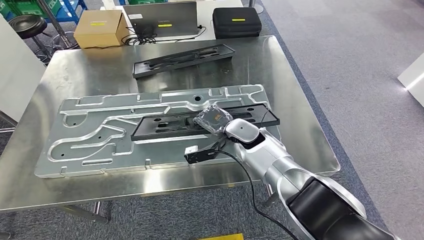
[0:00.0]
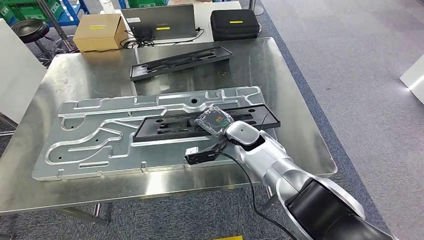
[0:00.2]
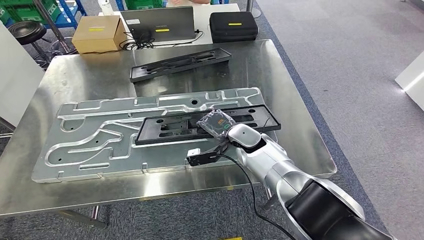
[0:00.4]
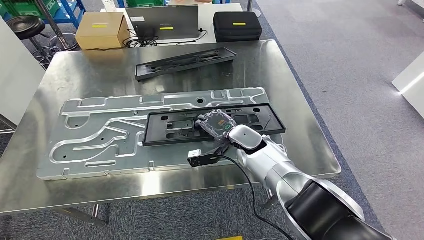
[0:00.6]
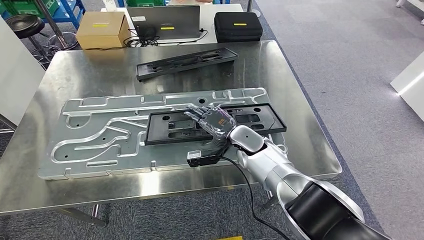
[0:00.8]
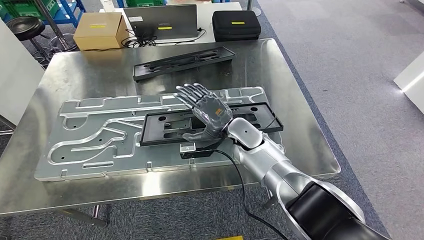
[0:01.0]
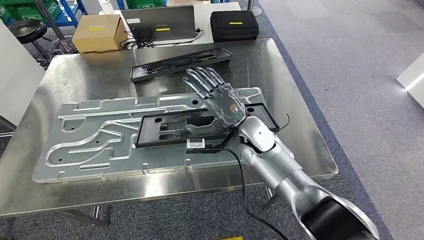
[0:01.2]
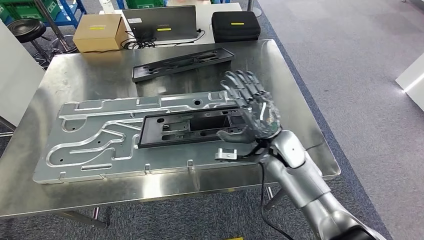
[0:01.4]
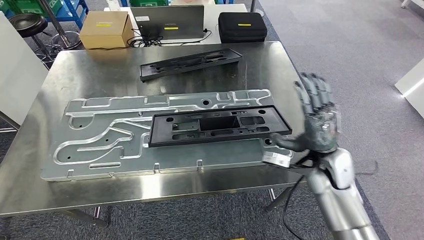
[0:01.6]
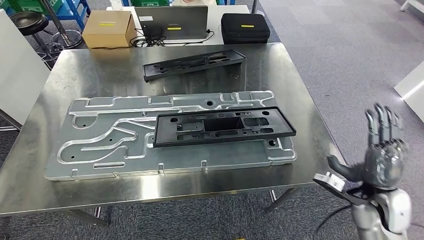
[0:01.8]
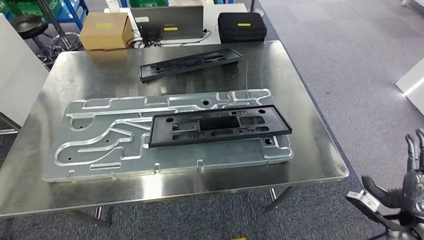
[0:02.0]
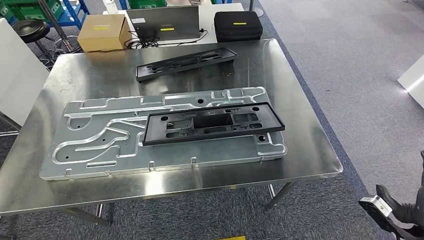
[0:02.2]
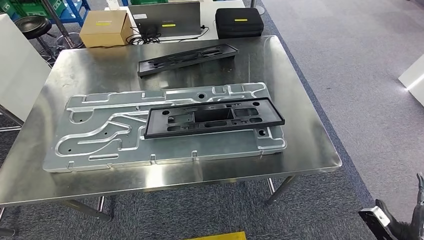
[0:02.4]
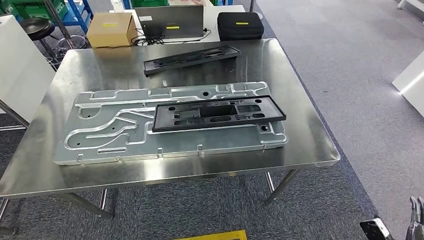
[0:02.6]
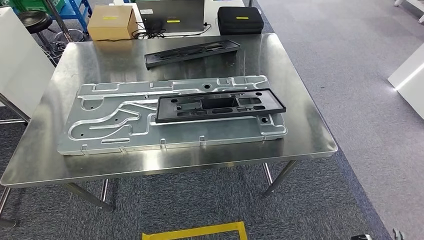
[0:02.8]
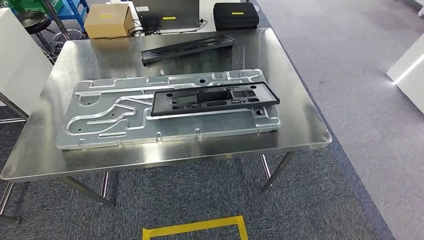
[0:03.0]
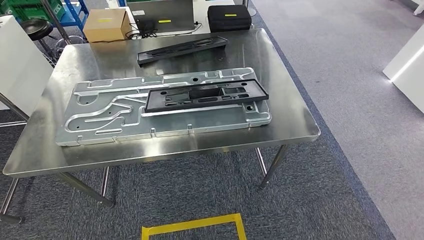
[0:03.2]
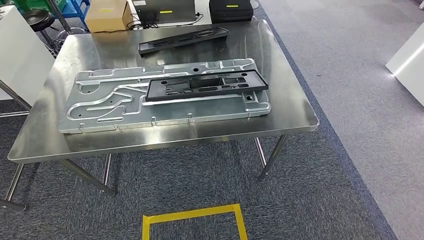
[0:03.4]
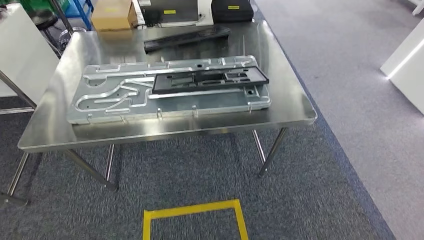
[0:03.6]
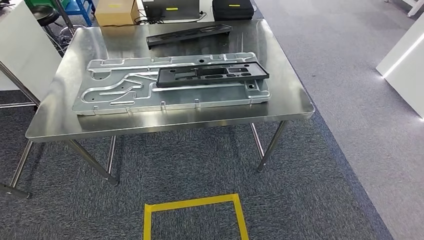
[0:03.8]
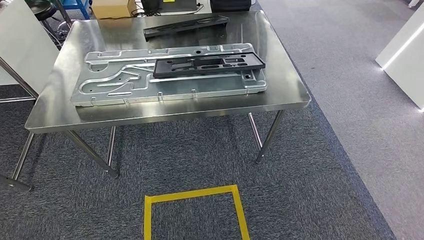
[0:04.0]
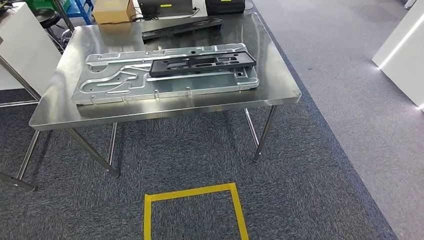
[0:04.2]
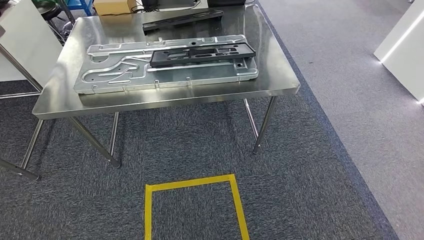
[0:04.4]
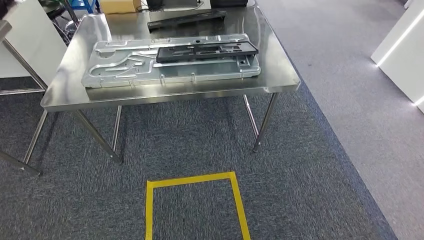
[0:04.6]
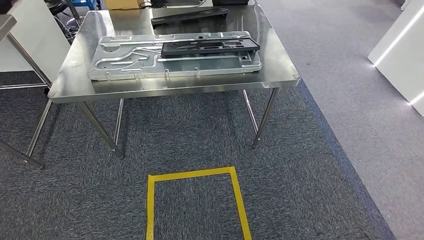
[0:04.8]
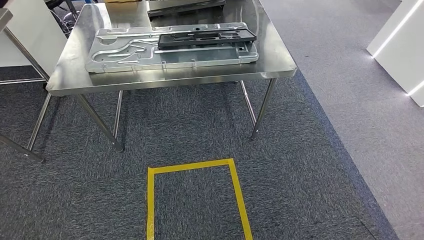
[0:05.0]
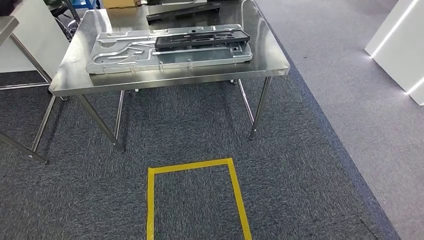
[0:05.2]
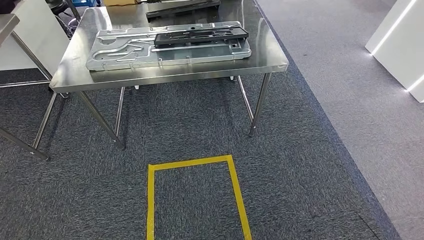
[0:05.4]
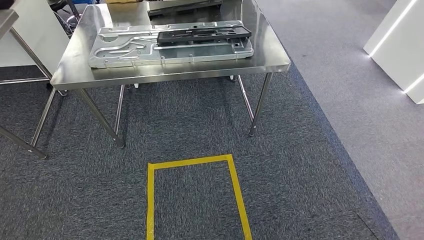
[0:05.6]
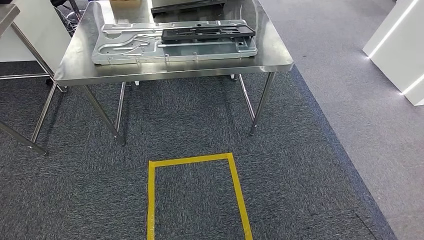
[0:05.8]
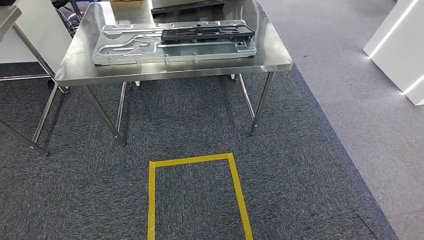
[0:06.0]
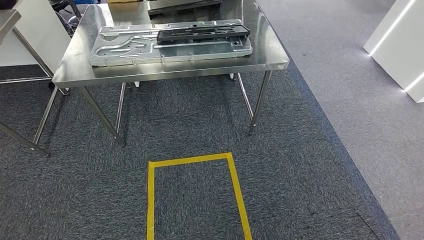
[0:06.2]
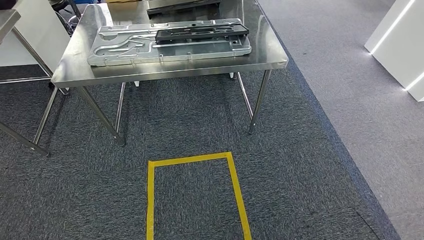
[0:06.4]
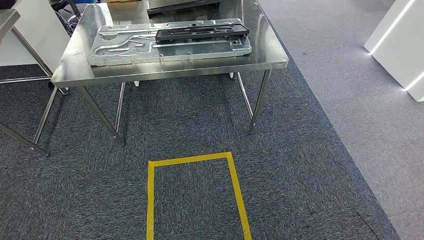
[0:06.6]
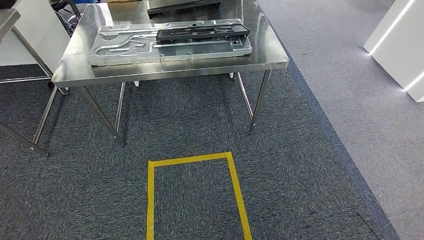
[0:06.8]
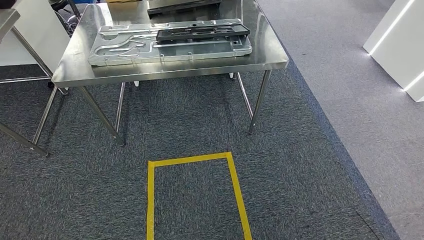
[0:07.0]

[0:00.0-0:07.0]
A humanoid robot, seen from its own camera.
Step, 0:00.0 to 0:02.2: Insert the large material into the corresponding slot on the workbench.
Step, 0:02.6 to 0:07.0: Move to the initial position of the shelf.
0:05.6 to 0:07.0: The hands make only small movements.

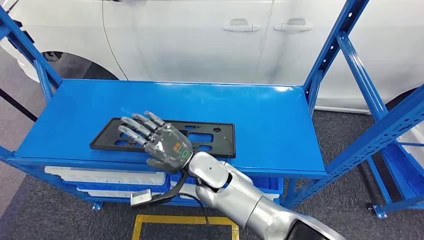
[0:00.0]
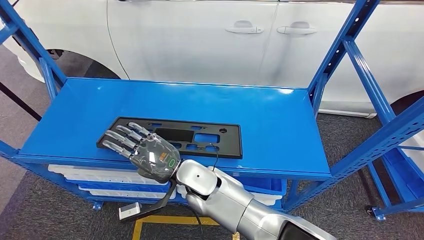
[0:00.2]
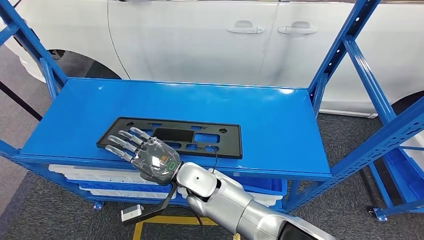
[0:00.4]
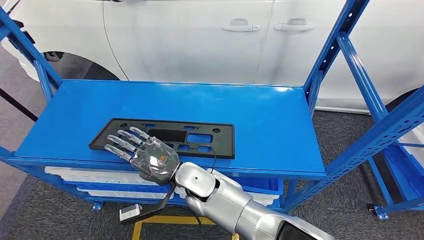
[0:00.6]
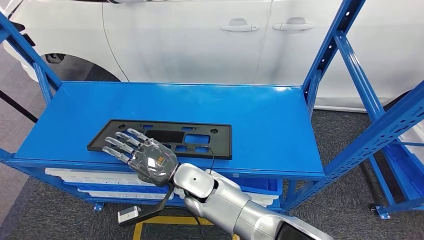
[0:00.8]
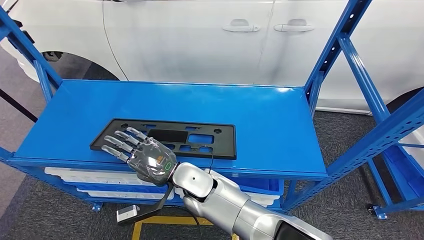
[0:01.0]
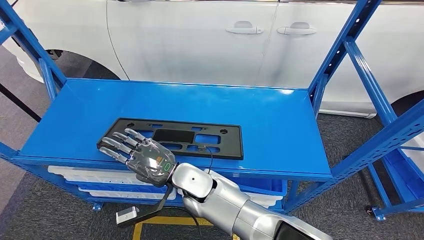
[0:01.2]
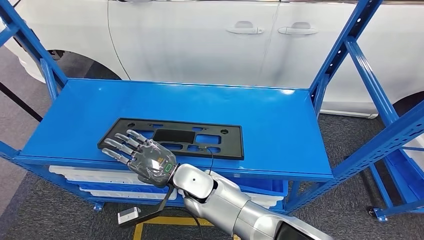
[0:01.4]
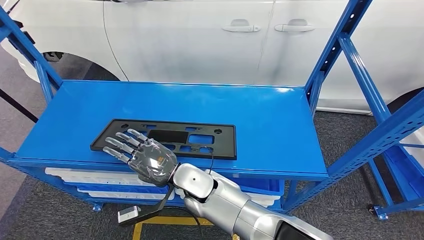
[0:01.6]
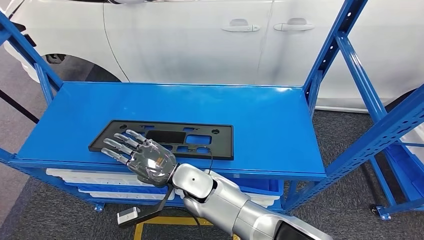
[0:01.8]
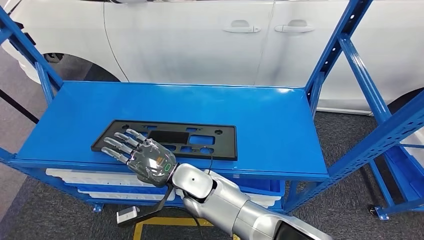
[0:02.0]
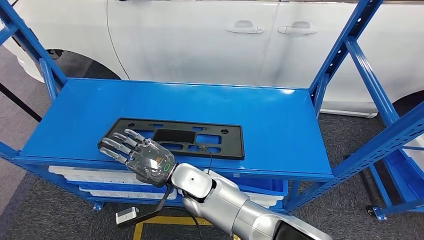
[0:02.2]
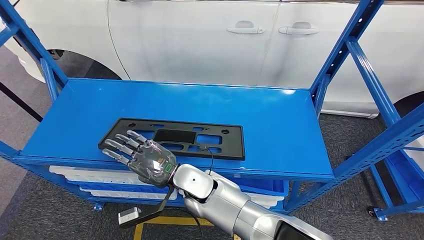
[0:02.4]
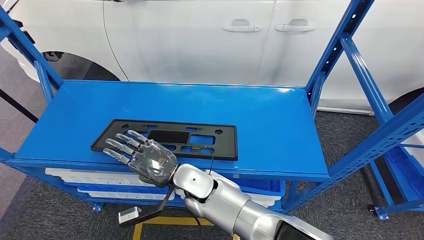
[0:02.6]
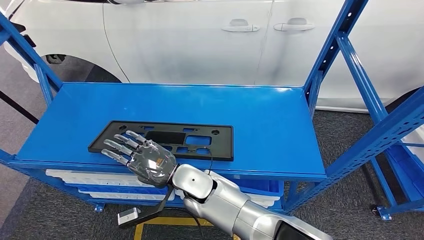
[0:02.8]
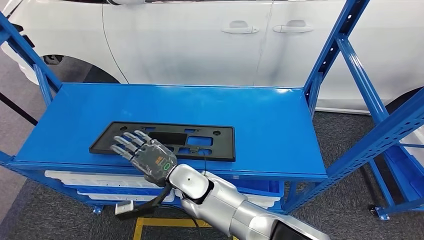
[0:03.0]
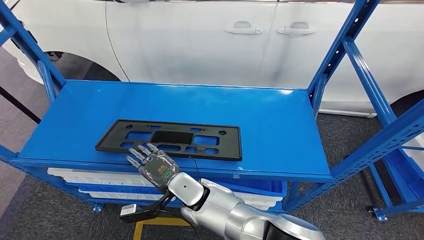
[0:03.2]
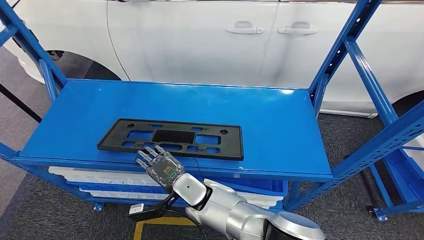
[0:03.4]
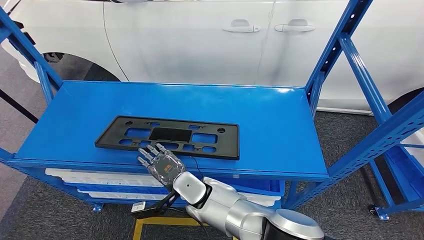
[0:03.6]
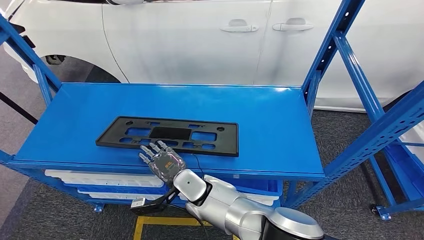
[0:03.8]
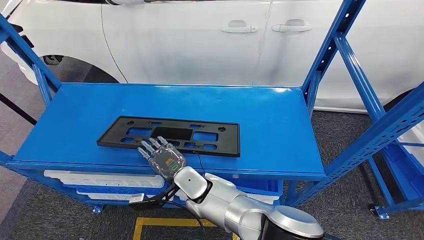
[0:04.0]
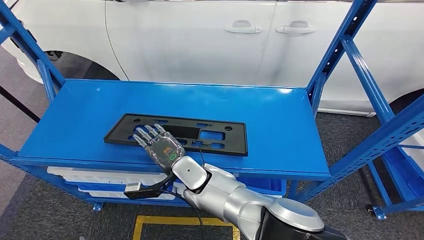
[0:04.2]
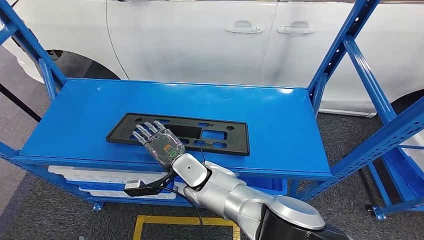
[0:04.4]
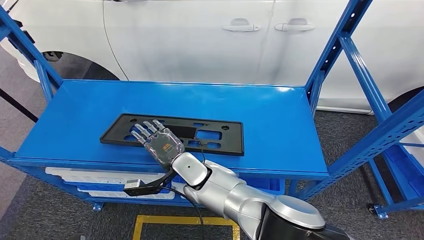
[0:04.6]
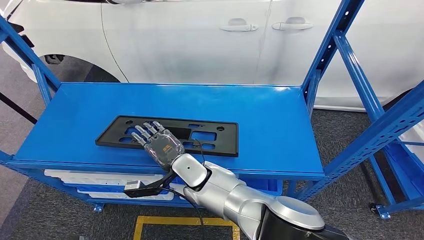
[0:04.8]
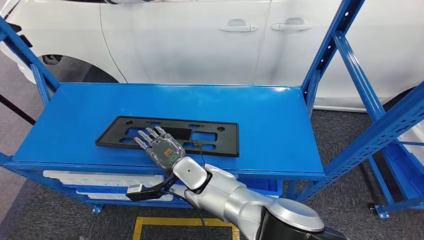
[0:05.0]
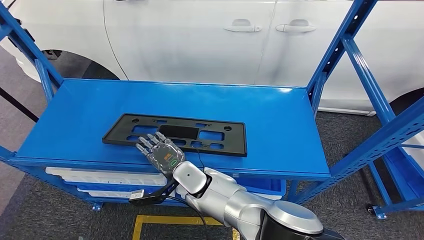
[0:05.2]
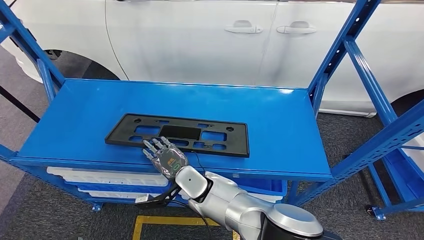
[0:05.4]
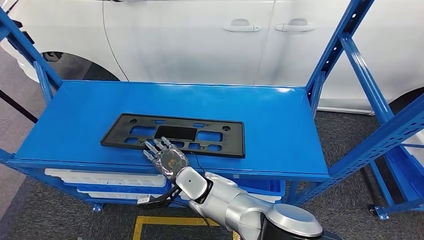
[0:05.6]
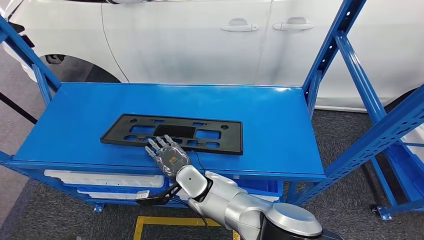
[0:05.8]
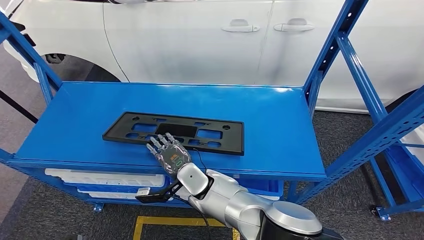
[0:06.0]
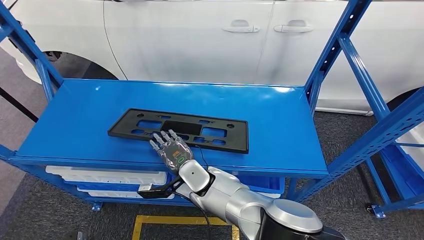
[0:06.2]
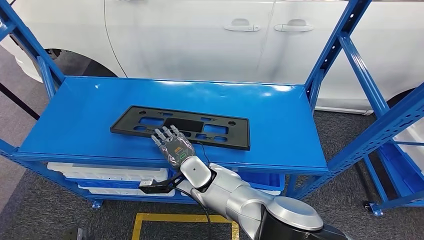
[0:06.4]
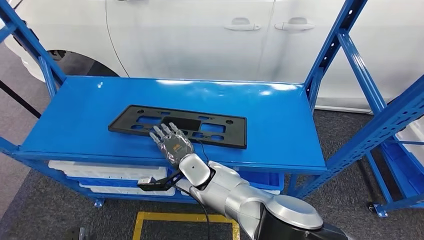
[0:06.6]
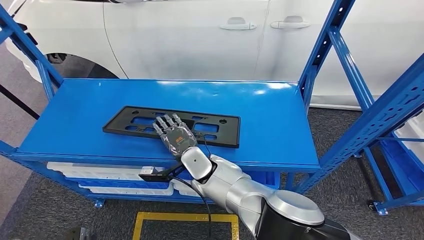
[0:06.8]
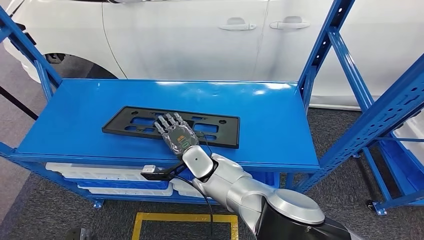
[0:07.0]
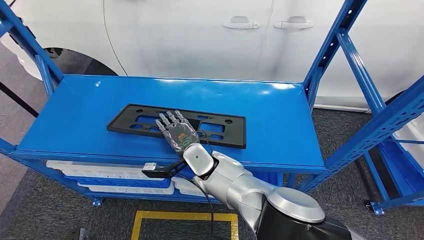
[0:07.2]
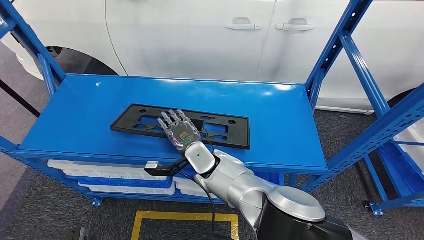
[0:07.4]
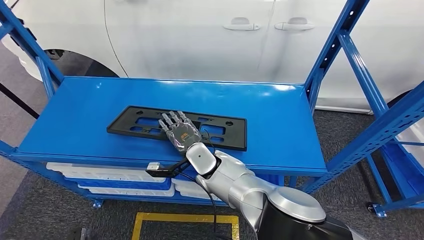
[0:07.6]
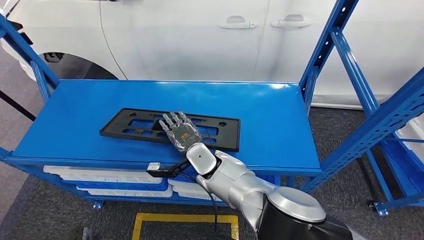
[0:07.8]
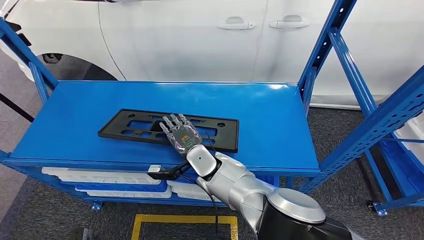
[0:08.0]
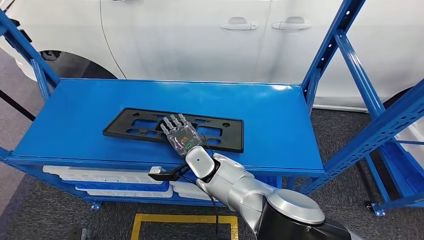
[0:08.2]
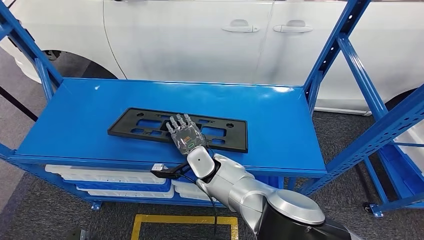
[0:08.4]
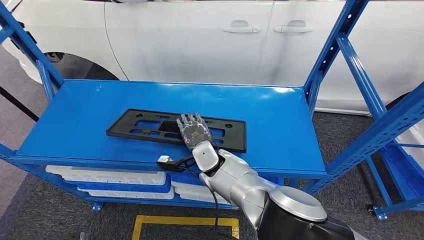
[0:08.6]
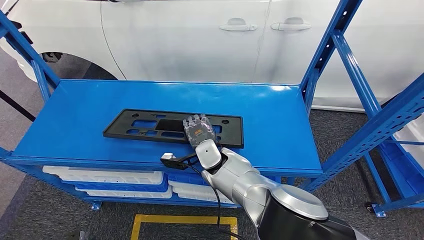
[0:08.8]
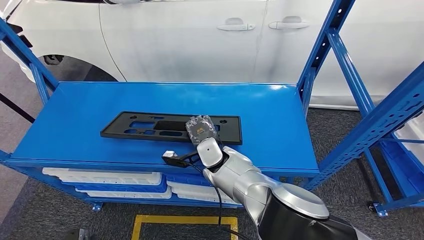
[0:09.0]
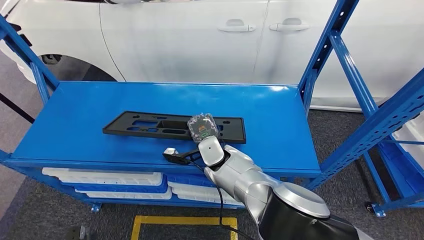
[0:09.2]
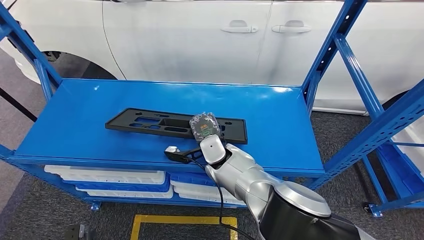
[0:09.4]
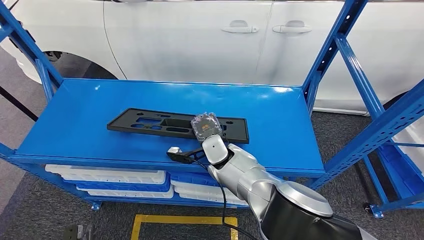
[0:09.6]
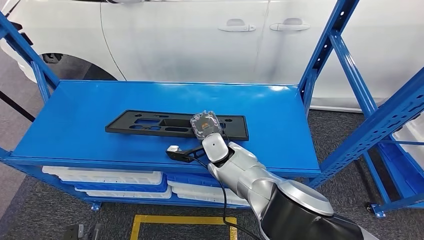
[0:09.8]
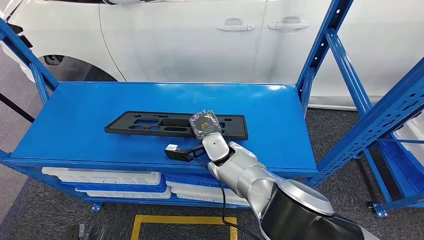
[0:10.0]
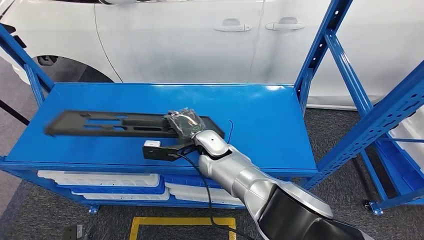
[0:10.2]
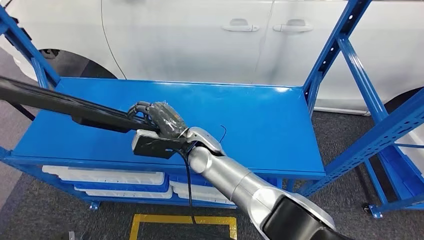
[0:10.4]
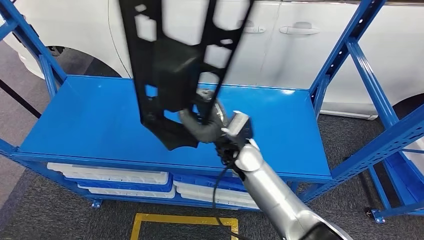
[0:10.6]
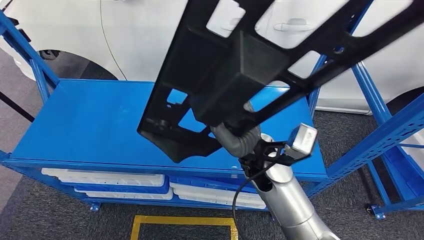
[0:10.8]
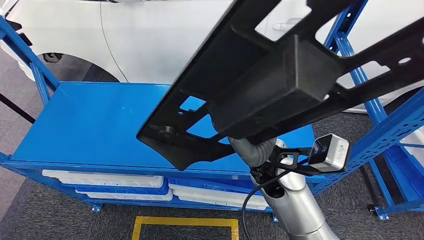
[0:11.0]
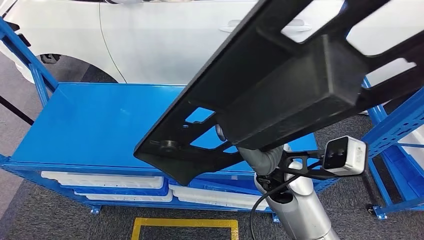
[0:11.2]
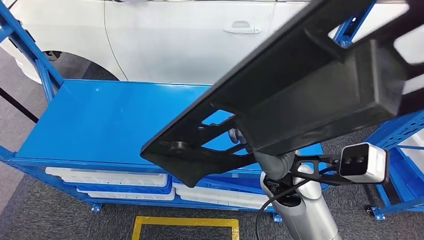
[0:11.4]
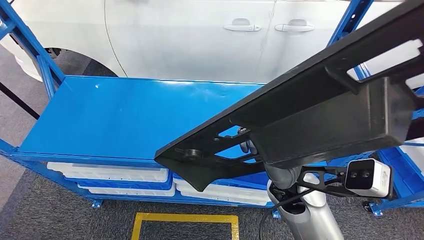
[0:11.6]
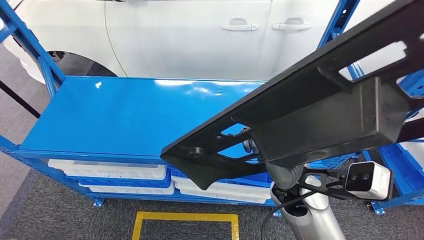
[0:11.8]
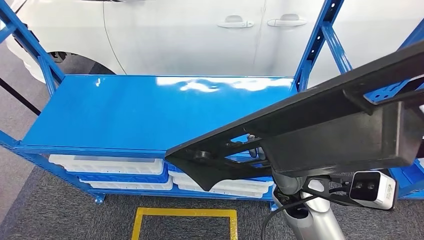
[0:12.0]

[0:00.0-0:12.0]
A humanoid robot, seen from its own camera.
Step, 0:00.0 to 0:10.2: Pick up the large material from the shelf.
0:01.6 to 0:03.0: The hands move only a little.
